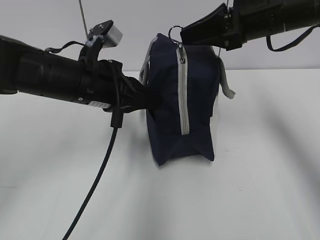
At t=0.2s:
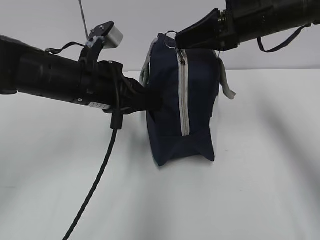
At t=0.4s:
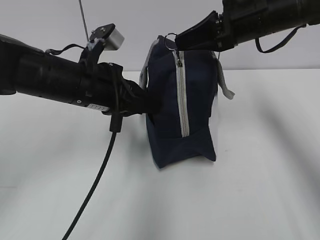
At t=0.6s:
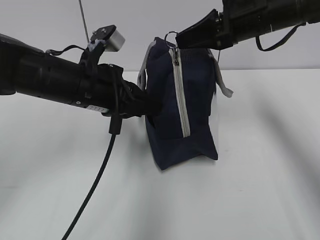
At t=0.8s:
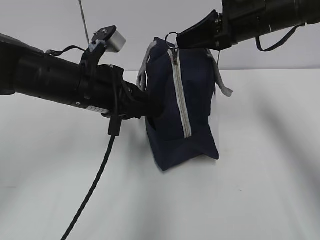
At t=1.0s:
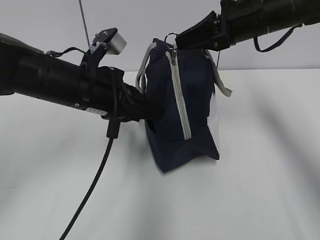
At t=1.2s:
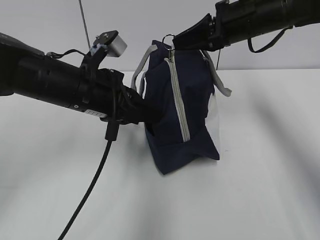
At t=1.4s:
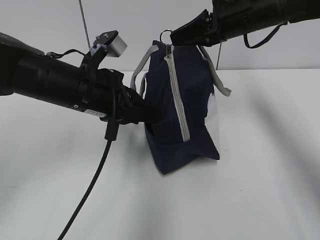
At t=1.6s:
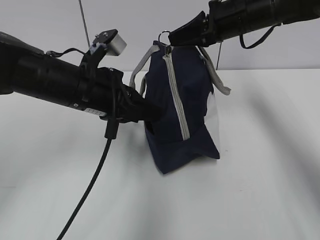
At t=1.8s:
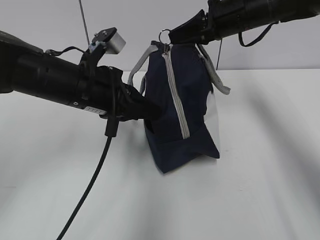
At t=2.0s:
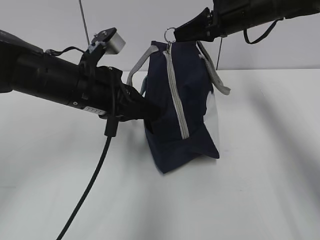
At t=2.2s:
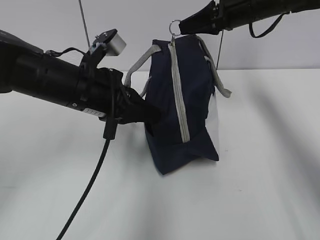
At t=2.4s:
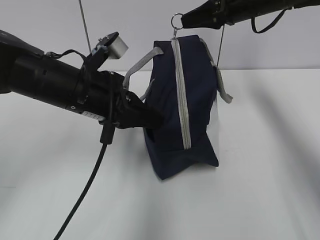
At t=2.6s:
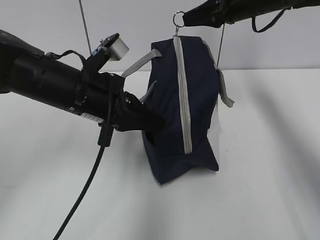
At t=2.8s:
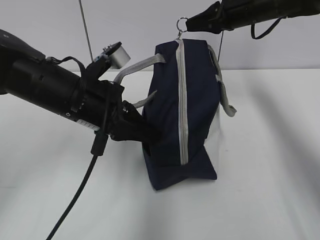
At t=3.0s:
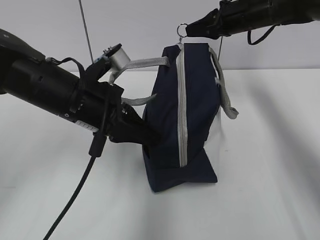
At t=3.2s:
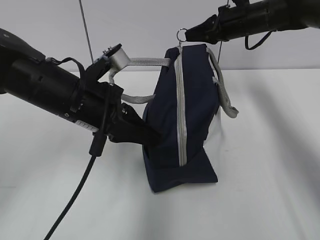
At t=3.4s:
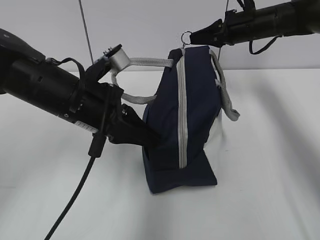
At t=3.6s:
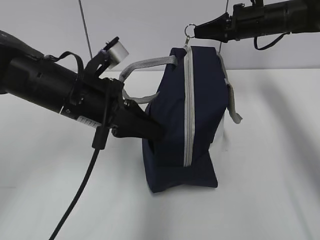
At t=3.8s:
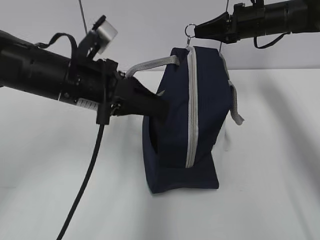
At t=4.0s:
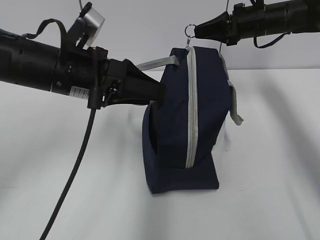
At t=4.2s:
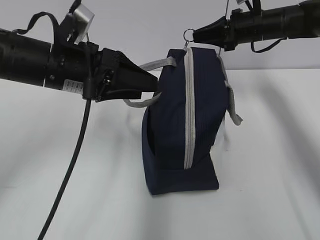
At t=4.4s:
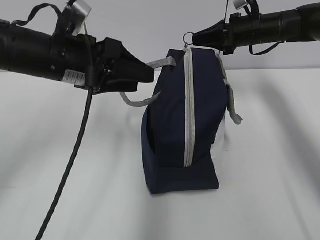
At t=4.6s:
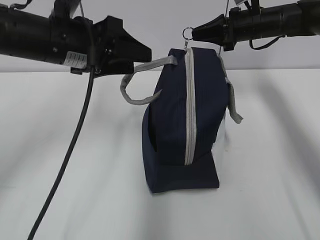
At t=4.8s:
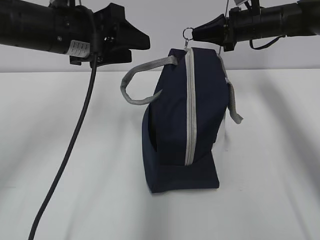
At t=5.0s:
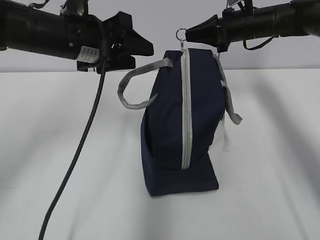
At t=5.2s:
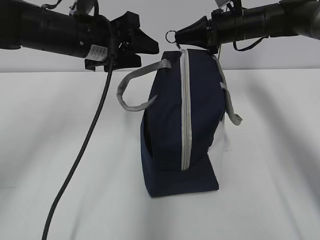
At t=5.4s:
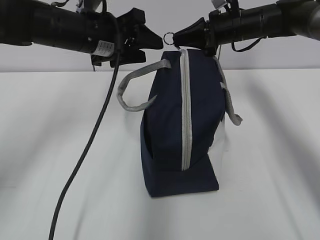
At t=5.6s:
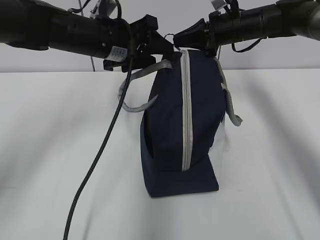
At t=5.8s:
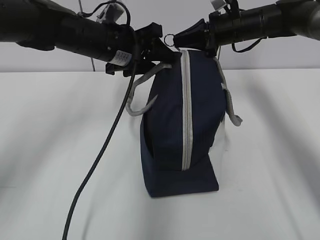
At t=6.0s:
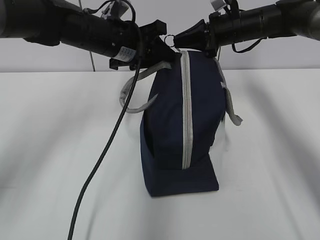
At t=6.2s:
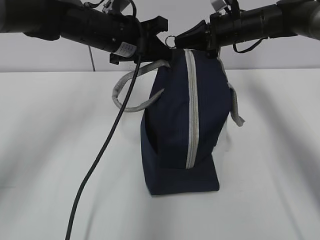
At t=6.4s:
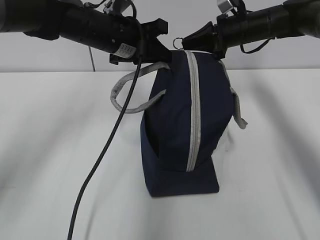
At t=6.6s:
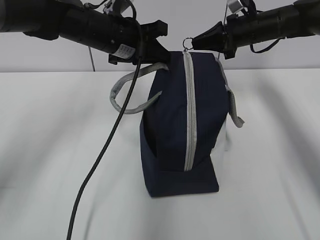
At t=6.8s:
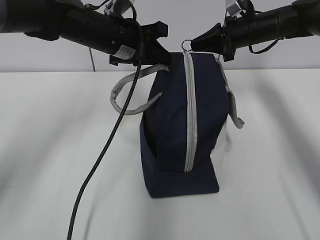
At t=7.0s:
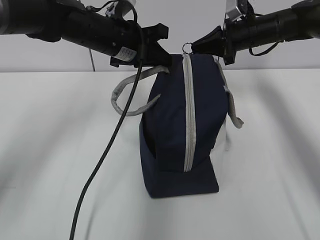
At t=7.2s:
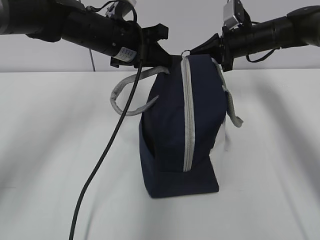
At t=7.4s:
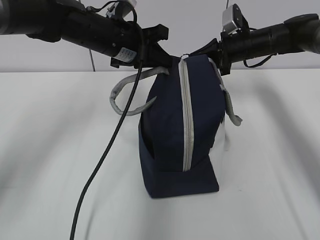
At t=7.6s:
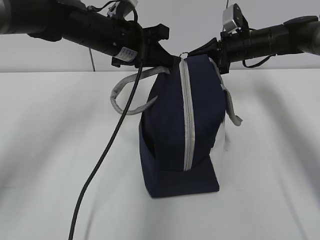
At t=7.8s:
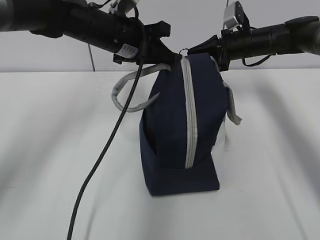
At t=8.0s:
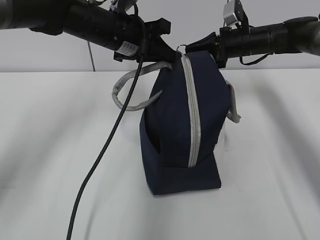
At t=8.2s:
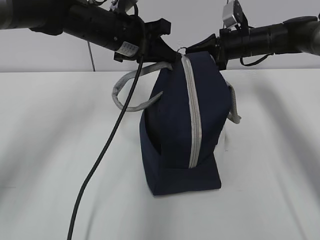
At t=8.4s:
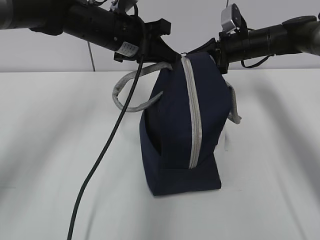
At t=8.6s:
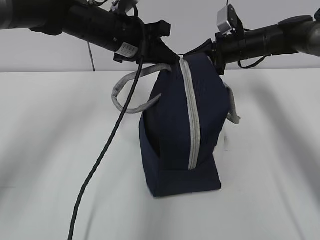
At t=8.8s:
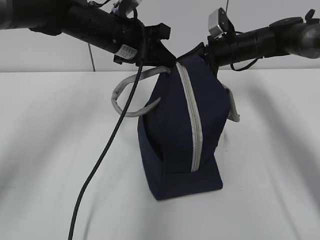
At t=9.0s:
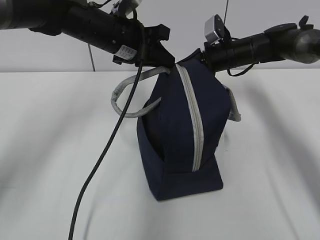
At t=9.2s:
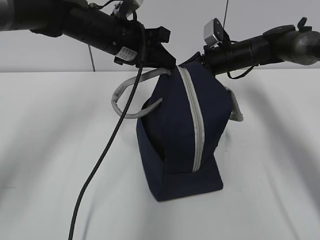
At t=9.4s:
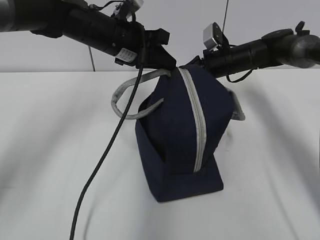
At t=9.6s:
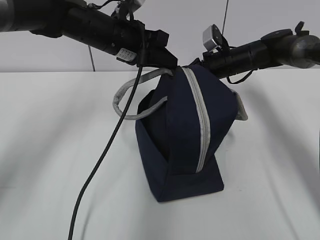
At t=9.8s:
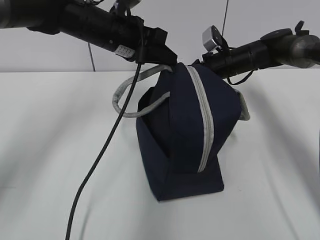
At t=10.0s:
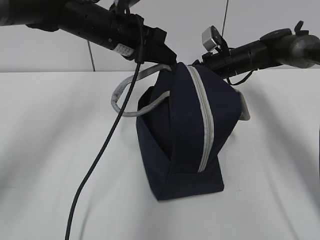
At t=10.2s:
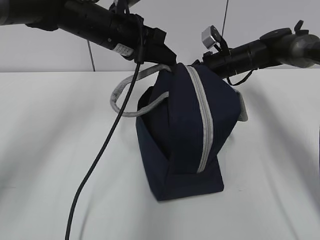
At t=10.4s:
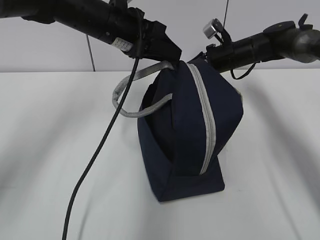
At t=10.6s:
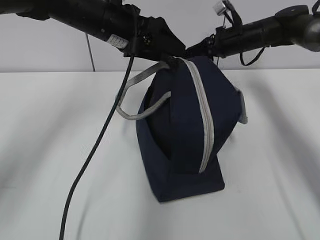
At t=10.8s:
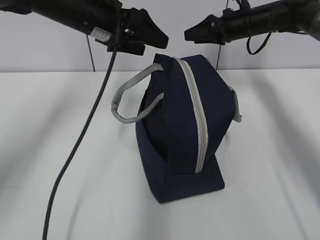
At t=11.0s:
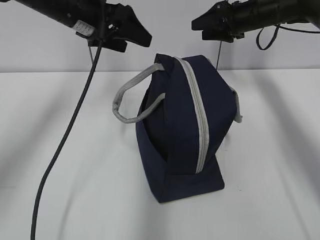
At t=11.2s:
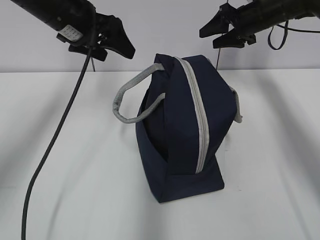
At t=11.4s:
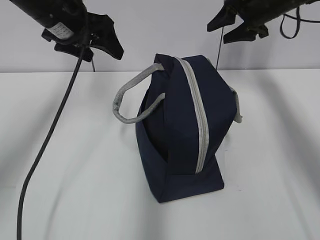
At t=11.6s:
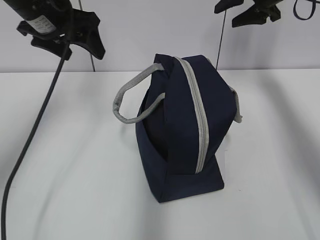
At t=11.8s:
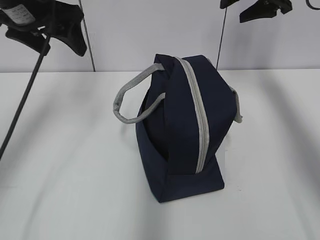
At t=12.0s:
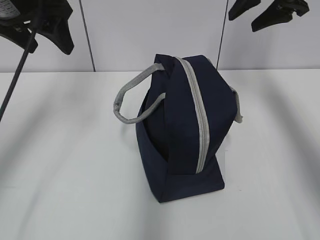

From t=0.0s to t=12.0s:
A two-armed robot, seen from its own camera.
Step, from t=0.0s to t=3.6s: Grab the lunch bag with your left hand.
Step, from t=3.8s to t=10.2s: Pull the zipper with your right hand.
From t=0.0s to t=1.6s: The right gripper is displaced forward by roughly 10 cm.
From t=1.6s to t=3.0s: The right gripper shifts some 5 cm forward.
From t=3.0s to t=4.4s: The left gripper moves some 5 cm, and opens.
From t=4.4s to t=6.0s: The left gripper travels forward and to the right by some 10 cm.
From t=6.0s to t=7.6s: The right gripper moves some 5 cm, while the left gripper closes up.
From t=7.6s to t=10.4s: The grippers stay close to where they were, moving slightly.
From t=10.4s to t=12.0s: The right gripper is displaced upward by roughly 20 cm, and opens; the left gripper moves to the left and upward, about 15 cm, and opens.

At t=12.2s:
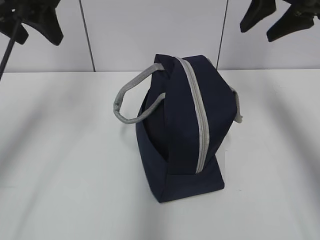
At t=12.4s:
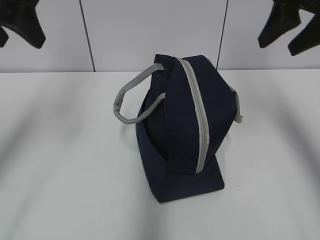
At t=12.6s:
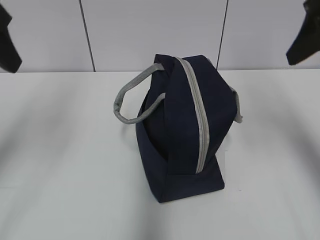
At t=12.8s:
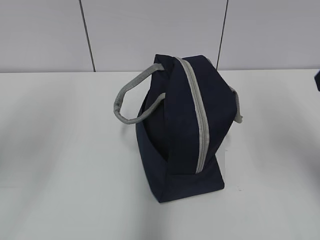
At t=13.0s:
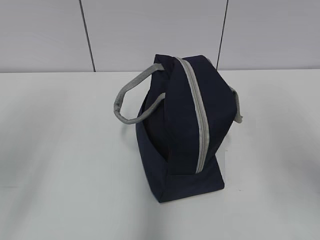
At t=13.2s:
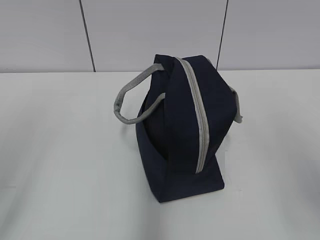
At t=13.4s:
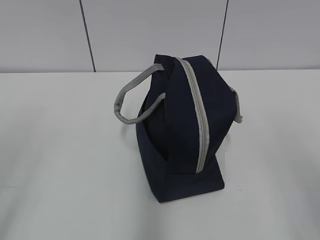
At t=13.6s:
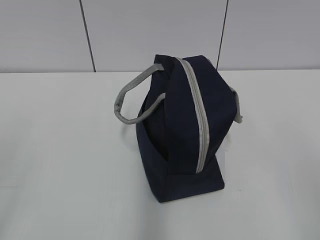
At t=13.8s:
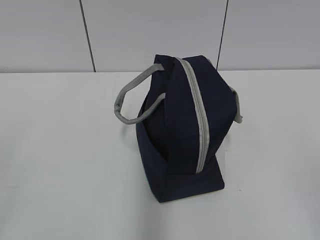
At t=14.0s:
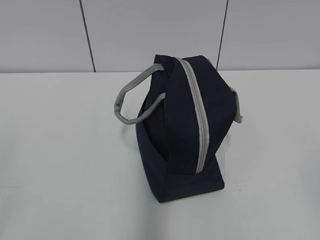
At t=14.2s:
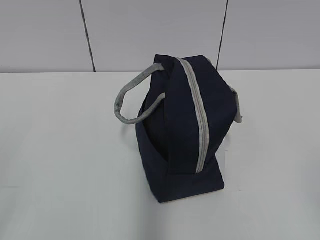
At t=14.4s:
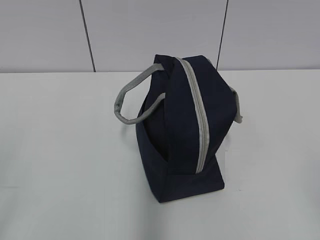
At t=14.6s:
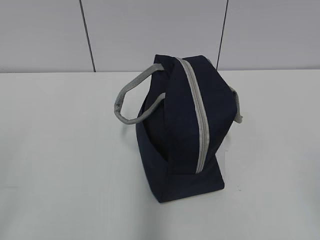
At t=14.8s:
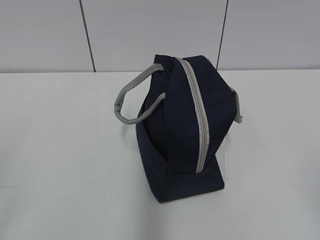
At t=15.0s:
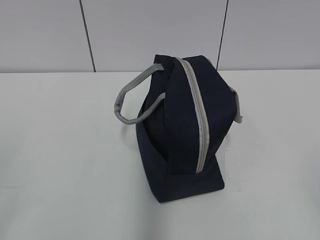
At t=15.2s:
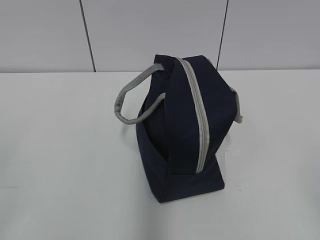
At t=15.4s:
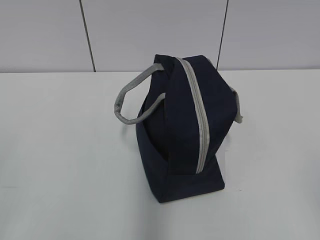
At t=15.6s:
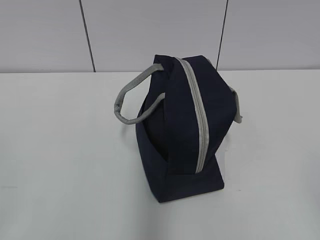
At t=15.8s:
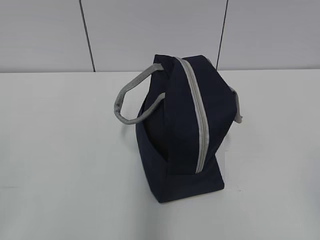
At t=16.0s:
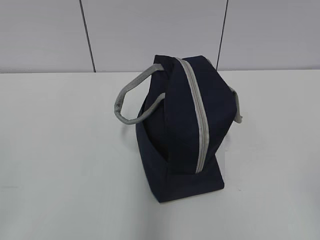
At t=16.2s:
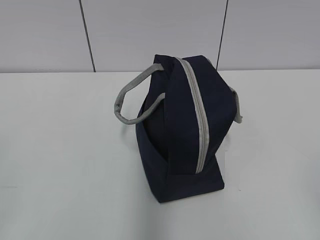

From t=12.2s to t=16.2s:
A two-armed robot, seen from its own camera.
From t=12.2s to t=13.6s: Both grippers move backward, roughly 35 cm.
